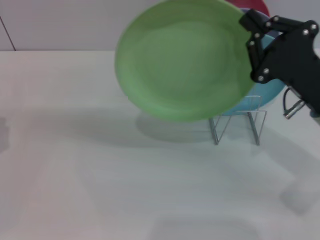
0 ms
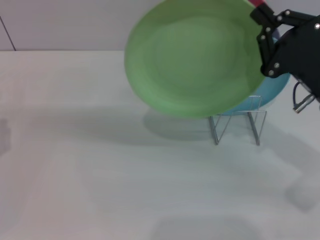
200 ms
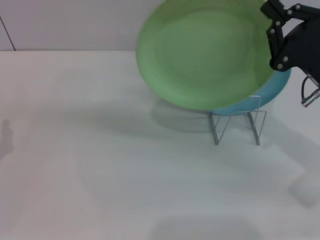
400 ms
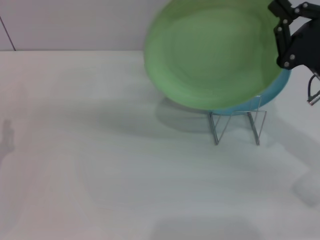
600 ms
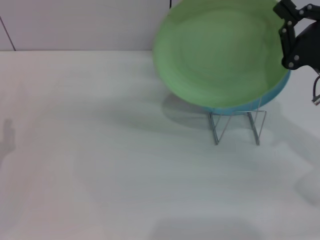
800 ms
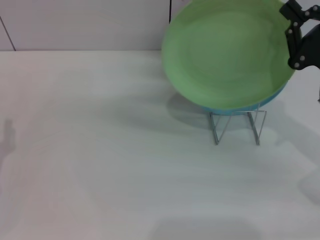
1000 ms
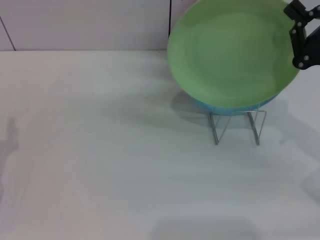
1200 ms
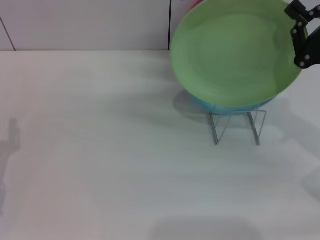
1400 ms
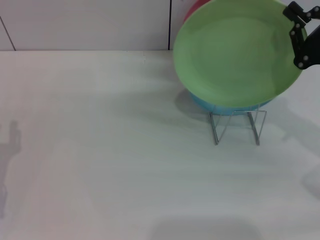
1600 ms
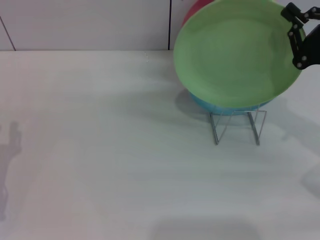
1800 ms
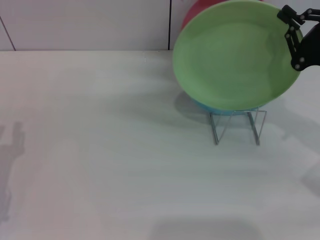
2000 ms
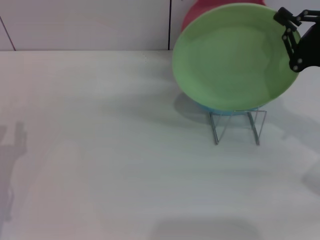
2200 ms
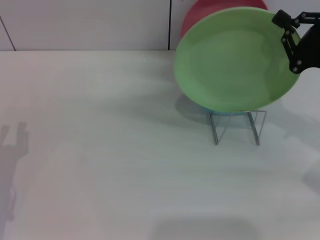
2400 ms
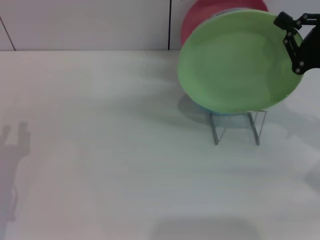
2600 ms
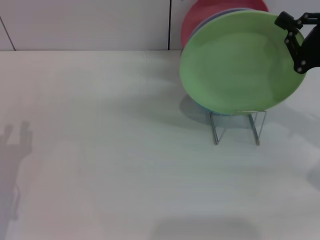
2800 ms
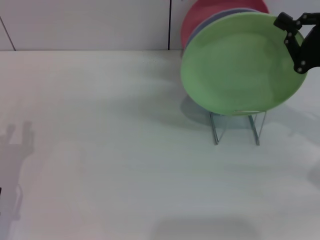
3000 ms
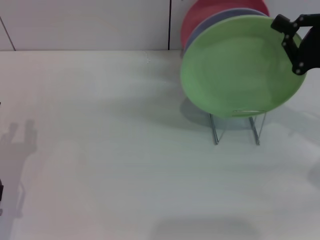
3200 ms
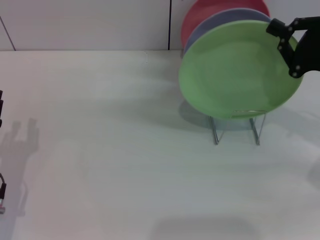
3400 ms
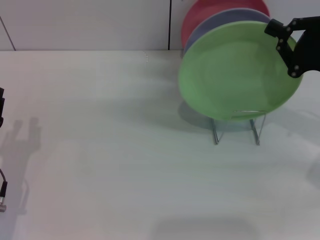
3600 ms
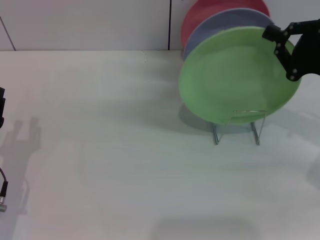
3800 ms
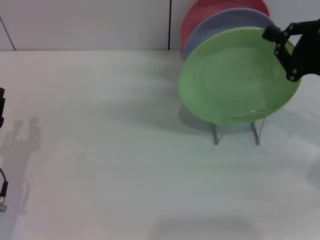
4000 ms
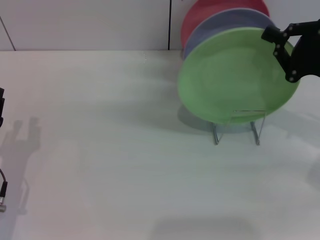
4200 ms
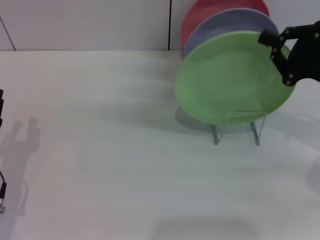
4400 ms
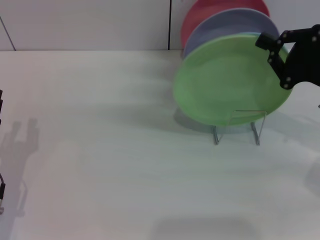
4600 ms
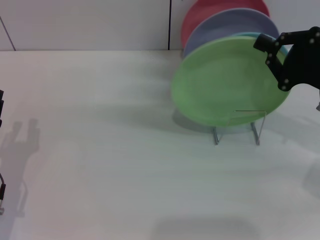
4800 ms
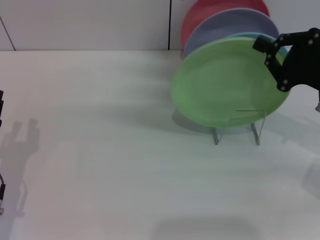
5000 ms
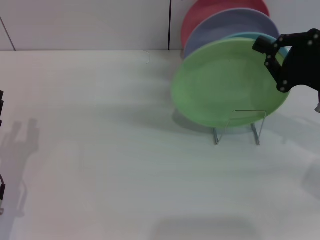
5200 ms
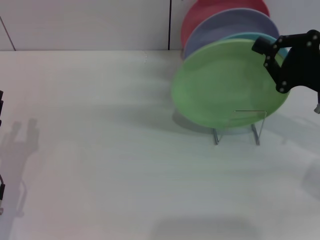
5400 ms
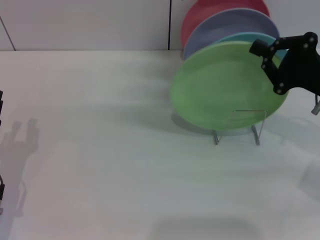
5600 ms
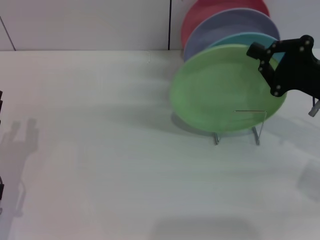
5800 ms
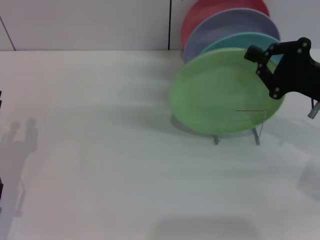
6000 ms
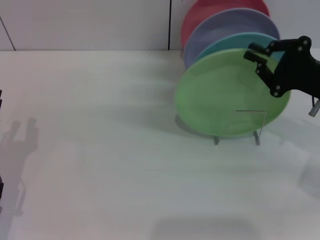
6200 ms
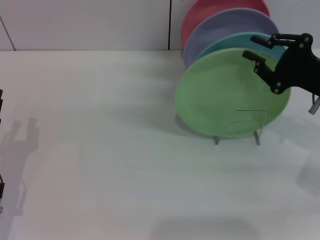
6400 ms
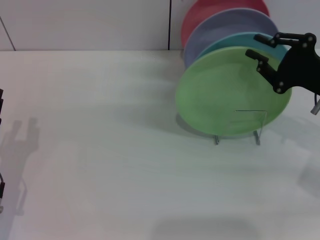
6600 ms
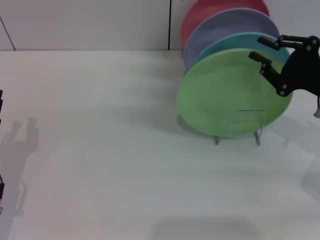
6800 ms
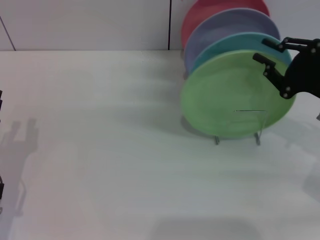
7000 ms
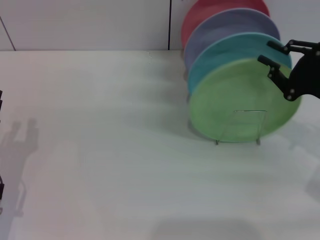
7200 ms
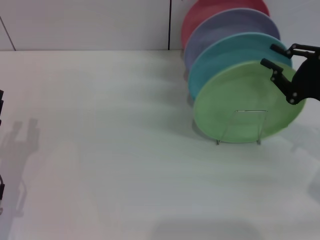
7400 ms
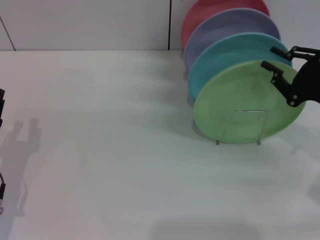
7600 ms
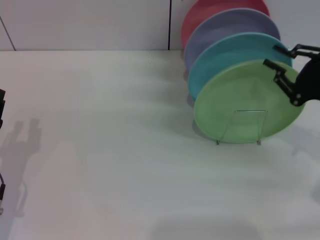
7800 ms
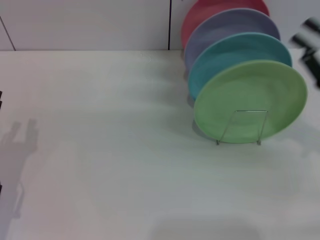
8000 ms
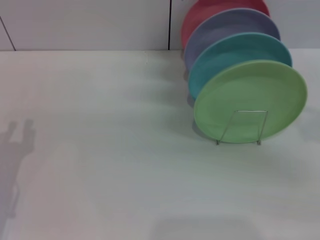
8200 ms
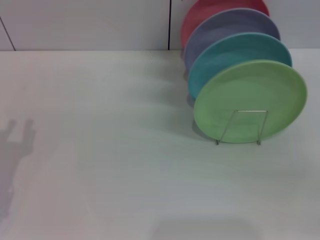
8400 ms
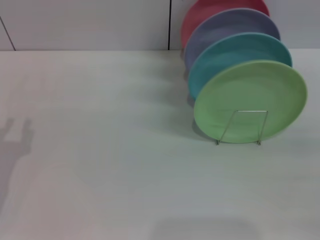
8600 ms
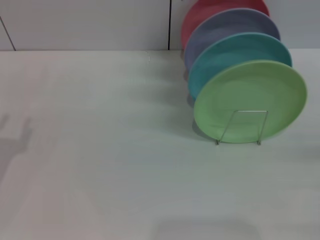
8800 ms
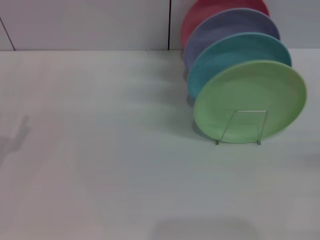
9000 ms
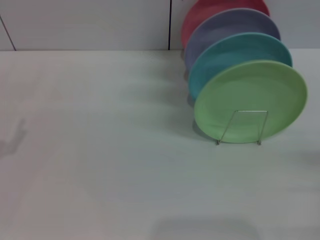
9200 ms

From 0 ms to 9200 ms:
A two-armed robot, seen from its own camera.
Task of the whole recording: Grip the plate with one hand, pass it to the other, then set it on the shelf.
Step, from 0 ms to 7800 ms: Place the plate on the shelf with the right gripper.
From 0 ms to 1600 ms: The right gripper shifts roughly 5 cm to the right.
From 1600 ms to 3000 ms: The grippers make only small movements.
From 3000 ms to 7600 ms: The grippers make only small movements.
From 7600 ms to 9200 ms: The right gripper travels backward and to the right by approximately 15 cm.

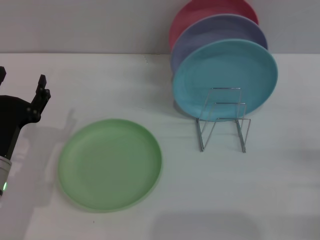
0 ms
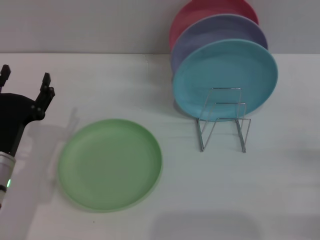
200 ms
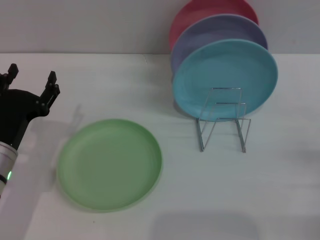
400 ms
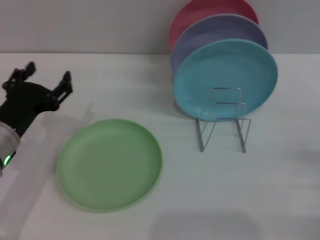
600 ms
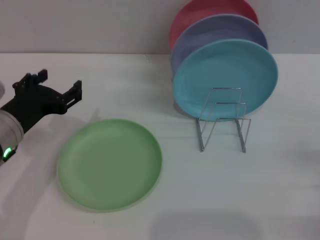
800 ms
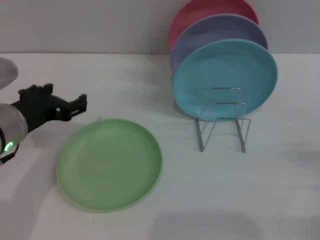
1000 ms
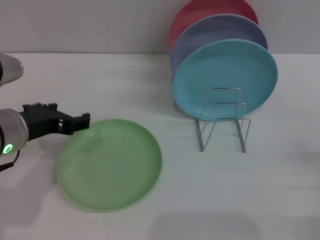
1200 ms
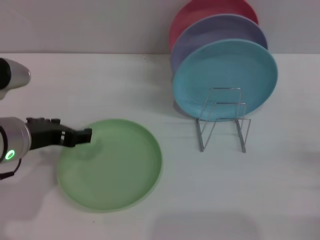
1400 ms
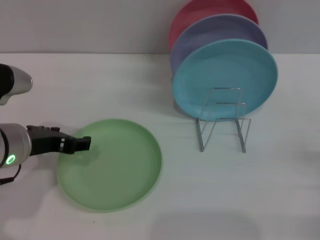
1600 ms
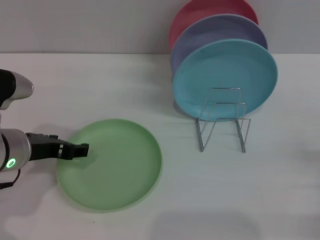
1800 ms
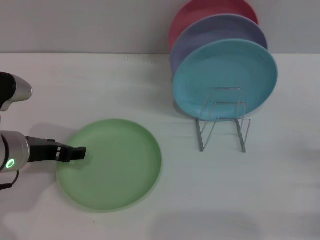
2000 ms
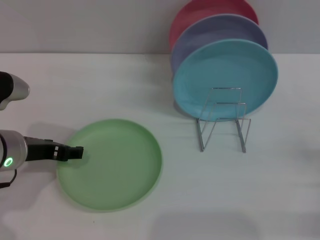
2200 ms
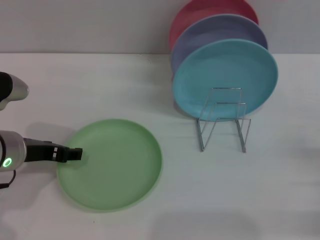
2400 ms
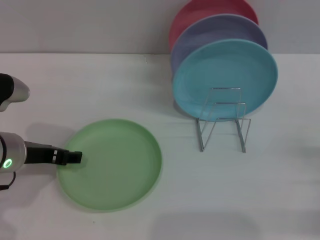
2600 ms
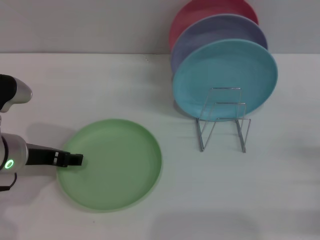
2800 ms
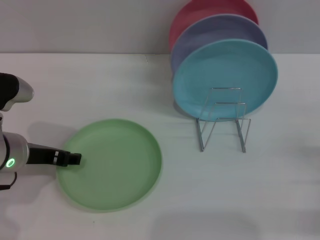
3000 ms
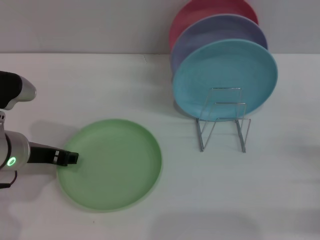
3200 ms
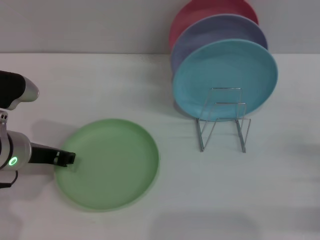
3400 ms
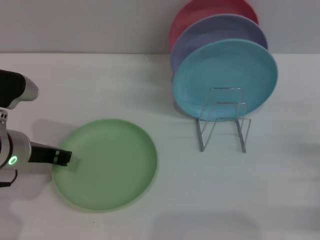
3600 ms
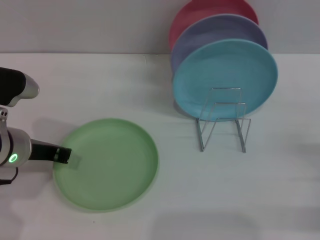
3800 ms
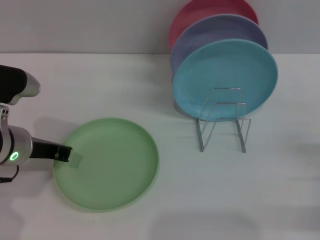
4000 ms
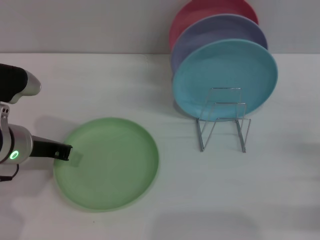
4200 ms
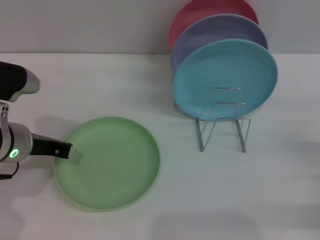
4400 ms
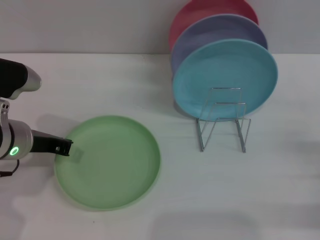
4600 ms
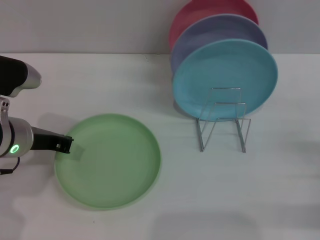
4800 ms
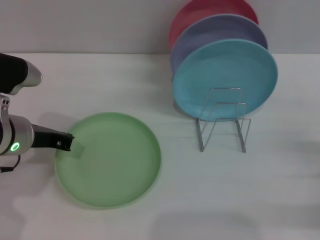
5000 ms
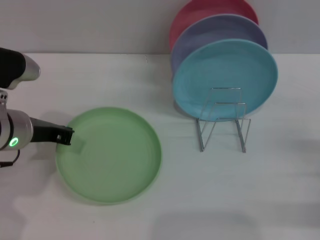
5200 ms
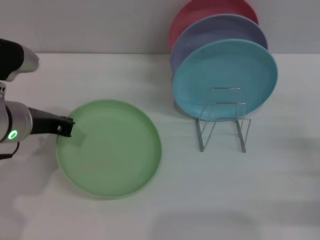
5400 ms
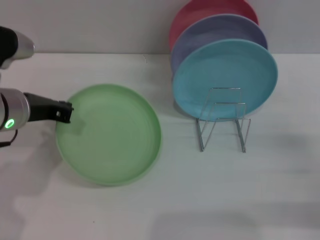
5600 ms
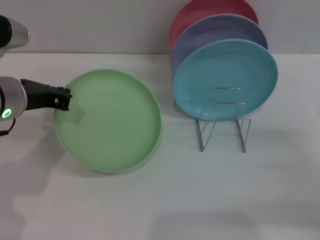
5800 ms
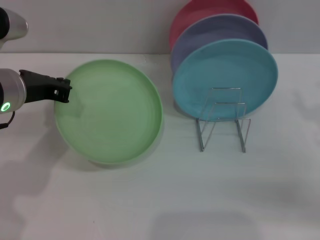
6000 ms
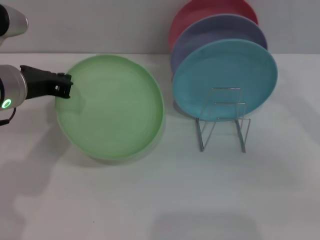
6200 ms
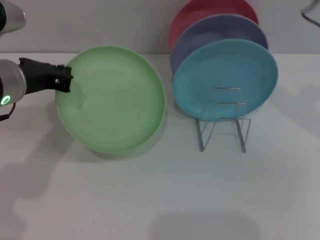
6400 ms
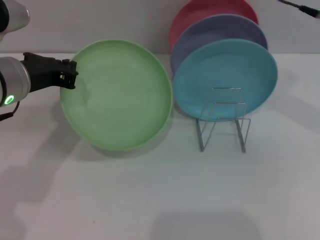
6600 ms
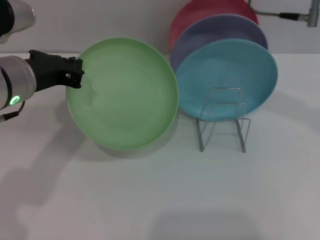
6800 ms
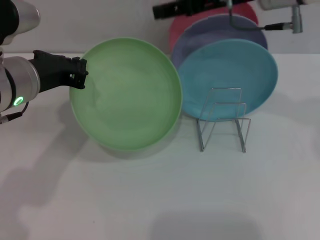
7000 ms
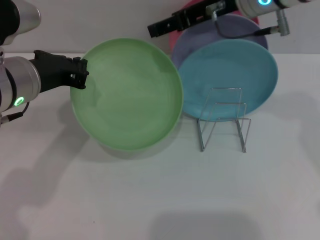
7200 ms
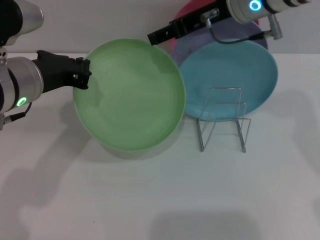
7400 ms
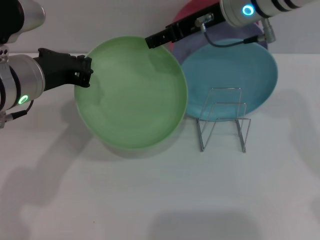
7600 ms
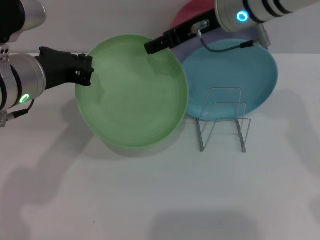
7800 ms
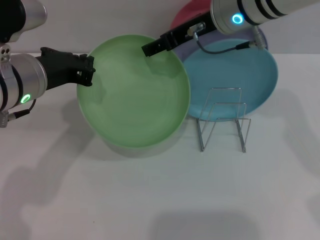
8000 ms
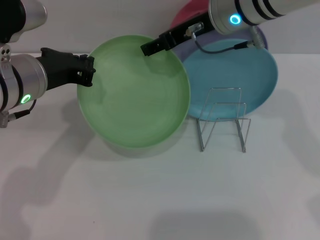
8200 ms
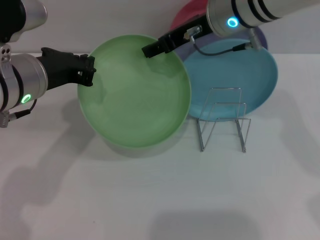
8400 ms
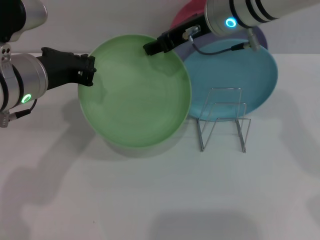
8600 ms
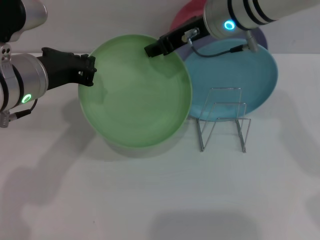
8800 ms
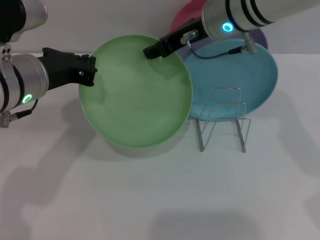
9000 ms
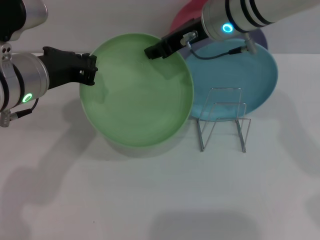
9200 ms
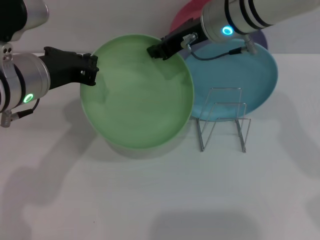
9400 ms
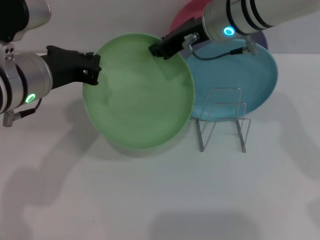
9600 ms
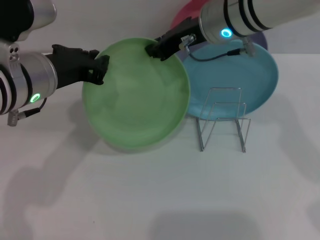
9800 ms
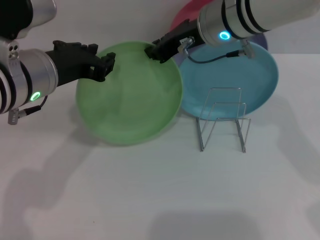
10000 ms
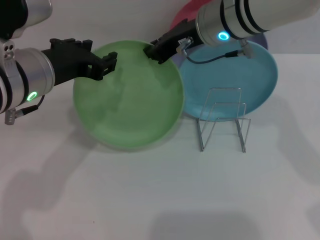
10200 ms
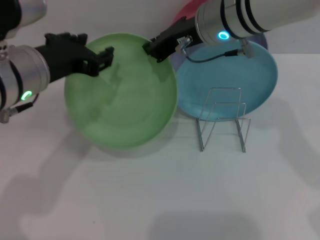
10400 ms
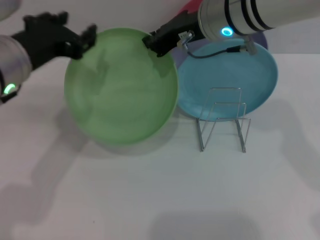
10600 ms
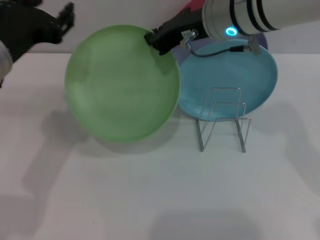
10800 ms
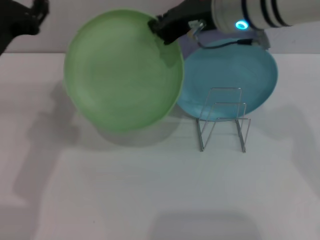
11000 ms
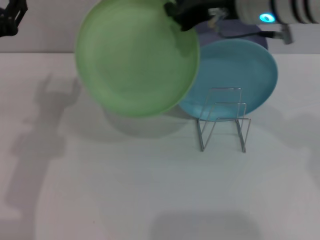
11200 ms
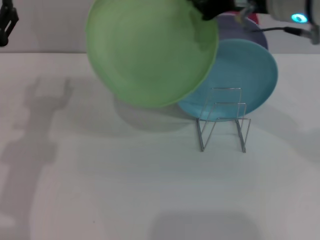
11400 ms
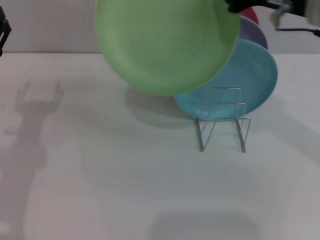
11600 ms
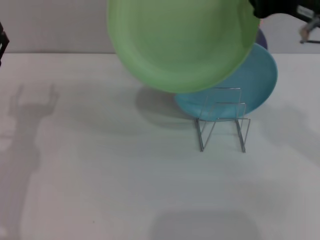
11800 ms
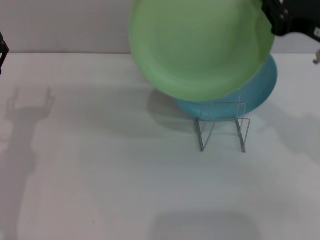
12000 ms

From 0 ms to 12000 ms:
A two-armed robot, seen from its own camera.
Task of the whole recording: Grip the plate with one hand, pass it to the other, then set it on the shelf.
Step, from 0 ms to 5800 ms: Pick up the plate with the left gripper.
Step, from 6200 ms to 10800 ms: Pass the plate from the left gripper to the right gripper.
From 0 ms to 1600 ms: The left gripper shifts roughly 10 cm upward.
From 1600 ms to 3000 ms: The grippers move only a little.
From 3000 ms to 4400 ms: The left gripper closes up.
From 4400 ms to 6000 ms: The left gripper heads upward, covering approximately 5 cm, while the right gripper moves upward and forward, about 10 cm.
From 6000 ms to 7600 ms: The right gripper is displaced to the left, forward and upward by approximately 30 cm.
From 7600 ms to 9000 ms: The right gripper closes up.
From 9000 ms to 10400 ms: The left gripper opens. The right gripper closes its fingers.
From 10400 ms to 12000 ms: The right gripper shifts roughly 20 cm to the right and backward. The left gripper moves downward and to the left, roughly 15 cm, and opens its fingers.

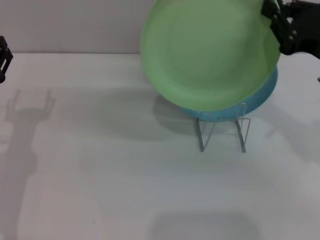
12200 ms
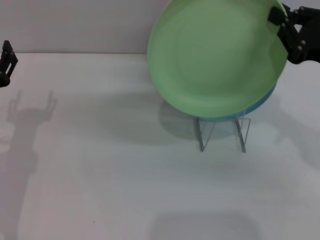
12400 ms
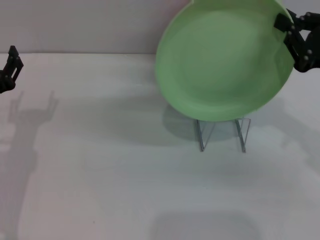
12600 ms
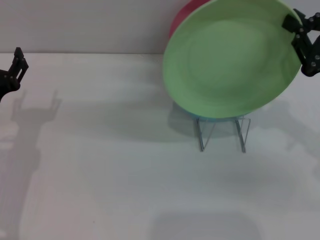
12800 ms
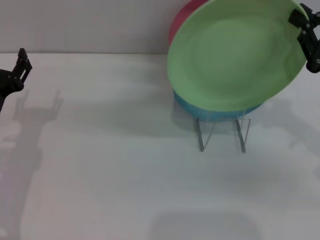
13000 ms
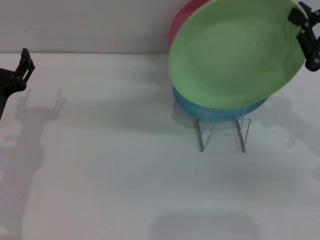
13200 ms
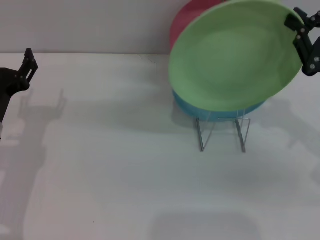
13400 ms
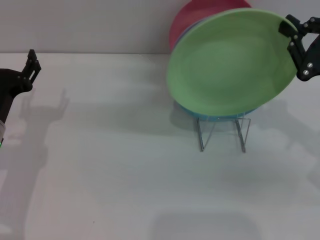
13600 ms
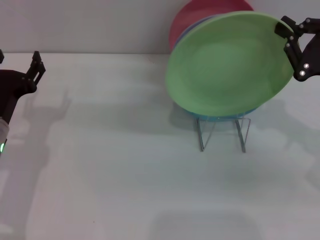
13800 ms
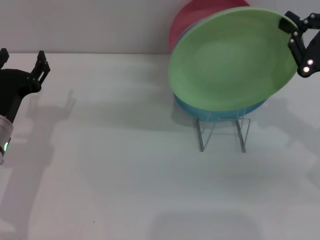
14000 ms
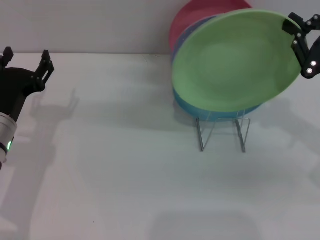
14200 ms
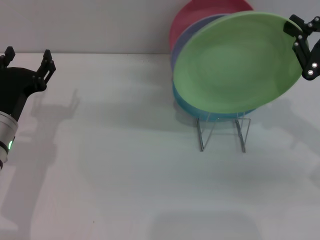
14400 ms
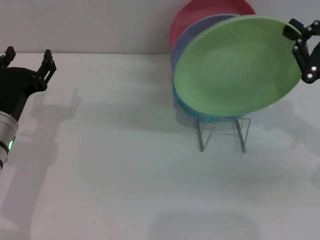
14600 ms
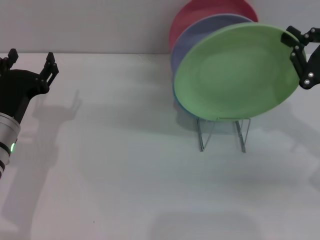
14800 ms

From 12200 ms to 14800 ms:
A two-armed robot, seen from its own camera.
Task of the whole recording: Grip the plate with one hand, pass it to the other, then set it on the shelf.
From 12200 ms to 13400 ms: The right gripper ends up about 5 cm from where it was.
From 13400 ms to 14800 ms: The grippers move only a little.
